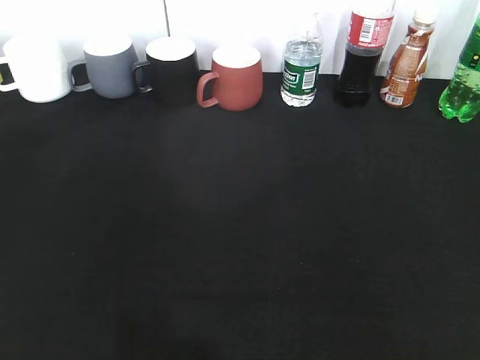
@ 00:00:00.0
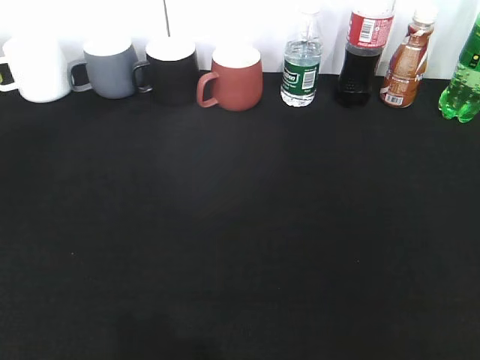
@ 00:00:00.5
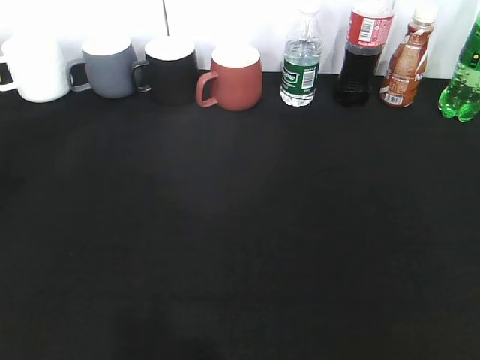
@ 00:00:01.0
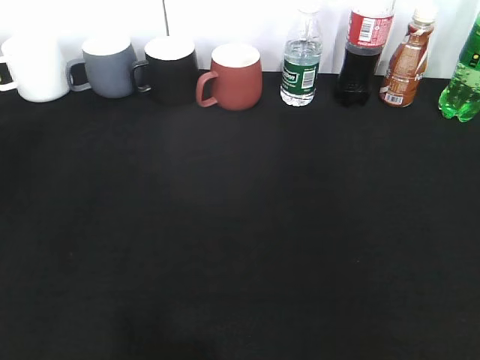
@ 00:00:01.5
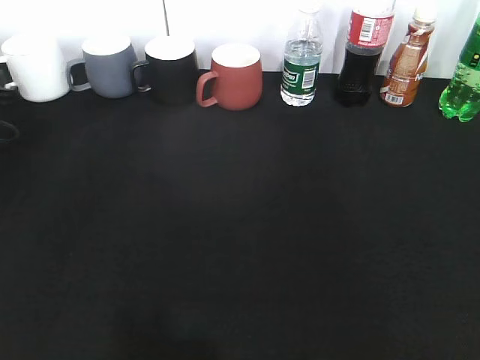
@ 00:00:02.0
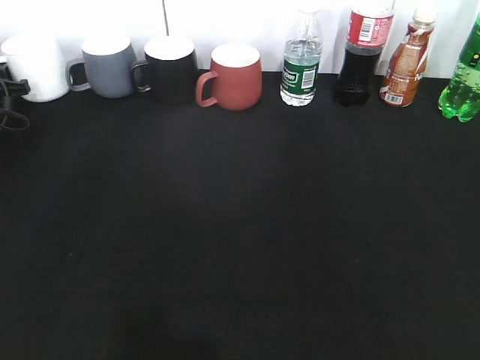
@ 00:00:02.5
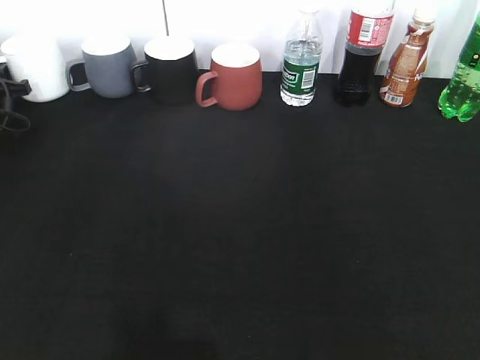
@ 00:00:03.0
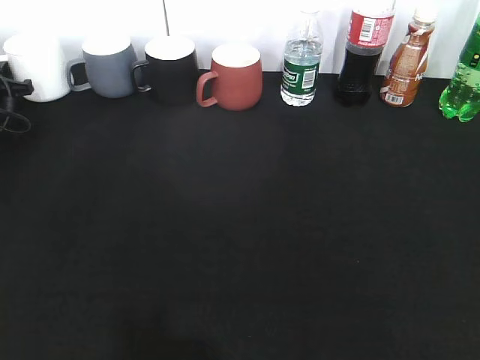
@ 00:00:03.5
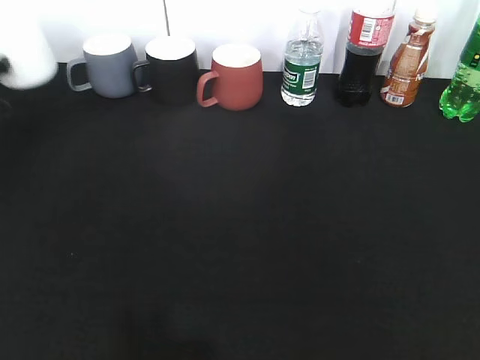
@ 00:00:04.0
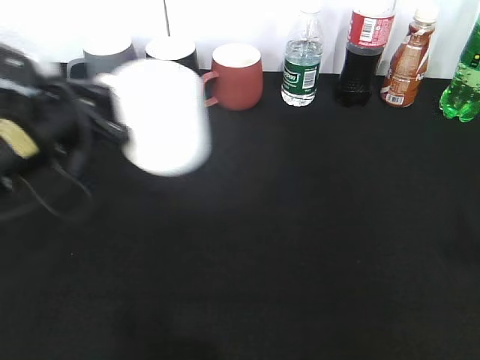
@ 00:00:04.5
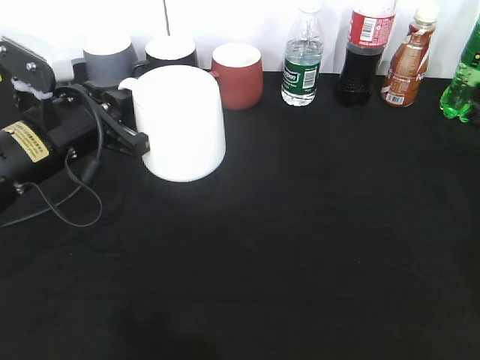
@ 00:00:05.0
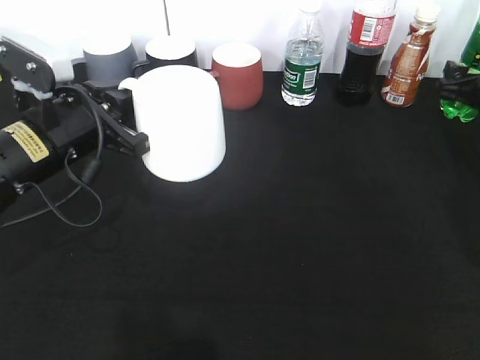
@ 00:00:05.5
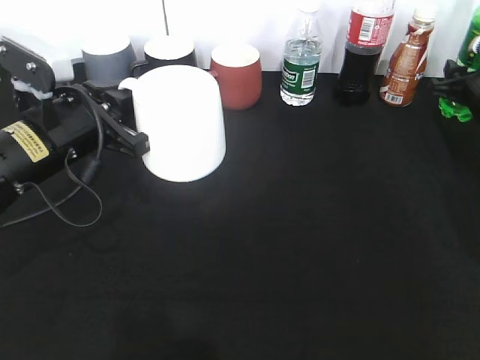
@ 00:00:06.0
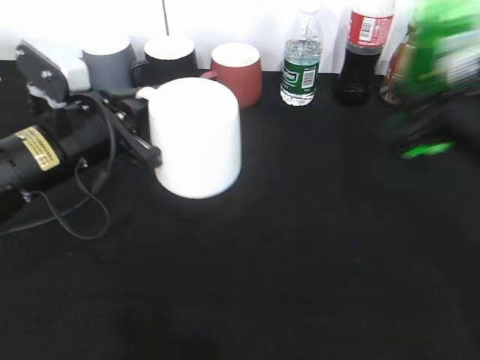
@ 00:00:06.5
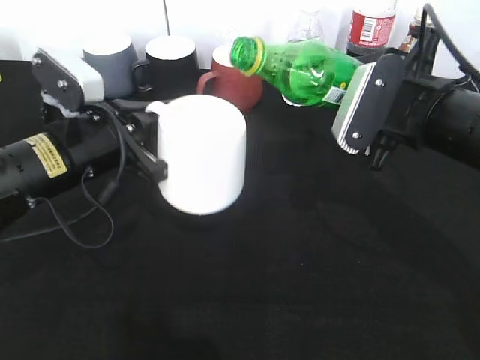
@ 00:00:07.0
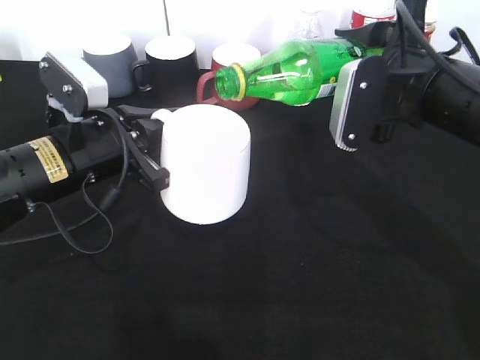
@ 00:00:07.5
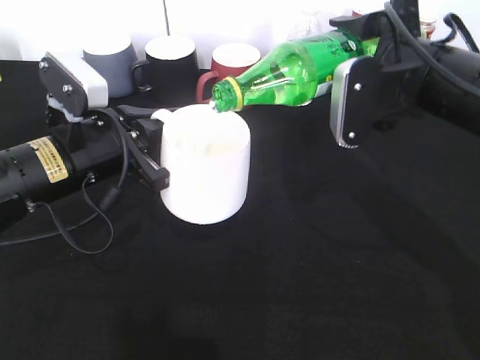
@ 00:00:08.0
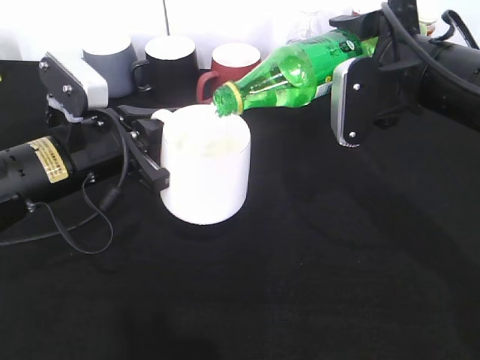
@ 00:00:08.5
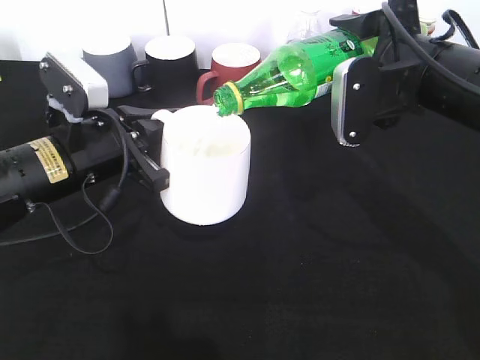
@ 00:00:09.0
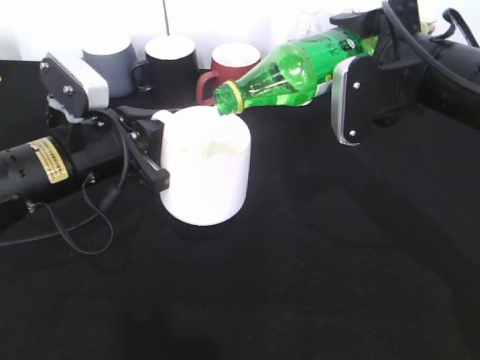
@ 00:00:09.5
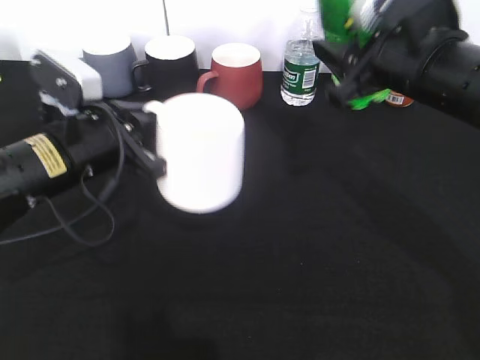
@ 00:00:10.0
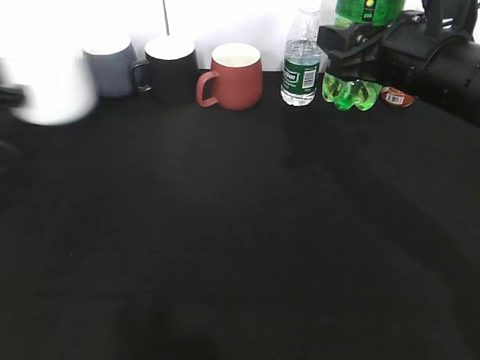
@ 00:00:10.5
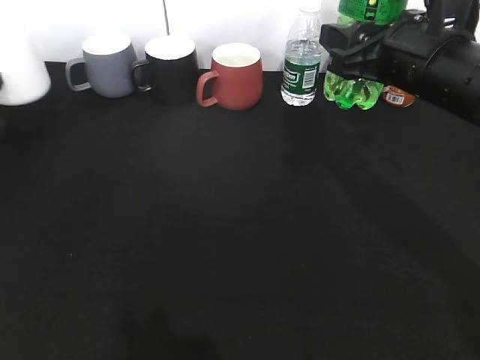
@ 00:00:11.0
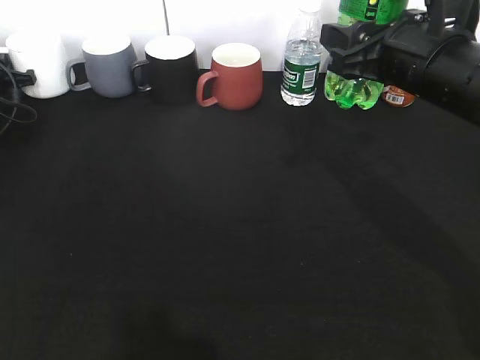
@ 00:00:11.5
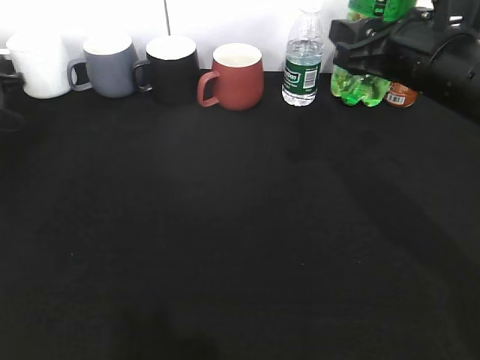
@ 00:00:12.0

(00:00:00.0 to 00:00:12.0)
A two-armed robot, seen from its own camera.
Step, 00:00:04.0 - 00:00:04.5: Lift the white cup with left gripper.
Step, 00:00:05.0 - 00:00:06.0: Grasp the bottle with sprite with right gripper.
Step, 00:00:06.5 - 00:00:09.5: Pour the sprite from bottle to cup with right gripper.
00:00:00.0 - 00:00:02.0: The left gripper heads forward, covering roughly 40 cm, and closes up.
00:00:02.0 - 00:00:04.0: The left gripper closes its fingers.
00:00:04.0 - 00:00:06.0: The right gripper heads forward, covering approximately 40 cm, and closes. Meanwhile the left gripper travels to the right and backward by approximately 25 cm.
00:00:06.0 - 00:00:08.0: The right gripper goes roughly 25 cm to the left, backward and upward.
00:00:10.0 - 00:00:12.0: The left gripper shifts about 30 cm to the left and forward, and opens its fingers.

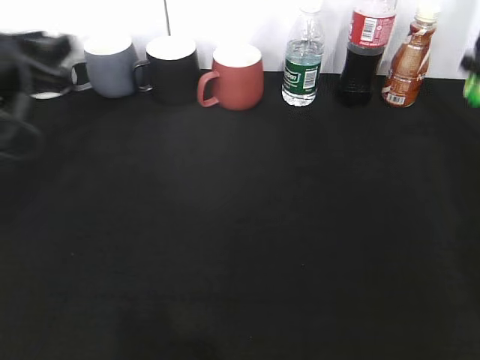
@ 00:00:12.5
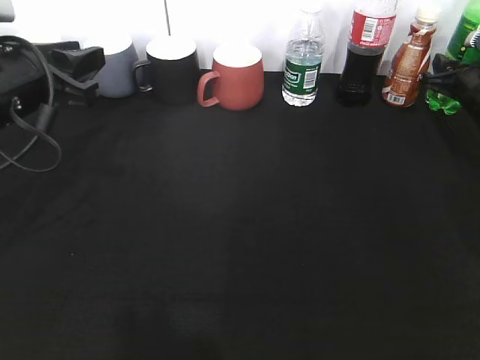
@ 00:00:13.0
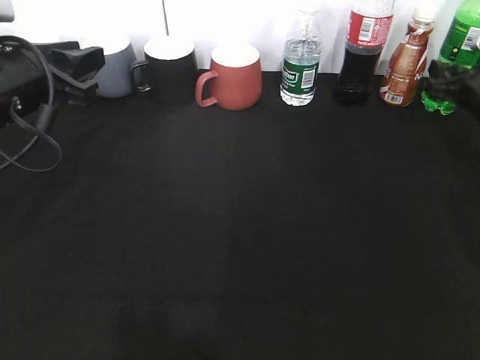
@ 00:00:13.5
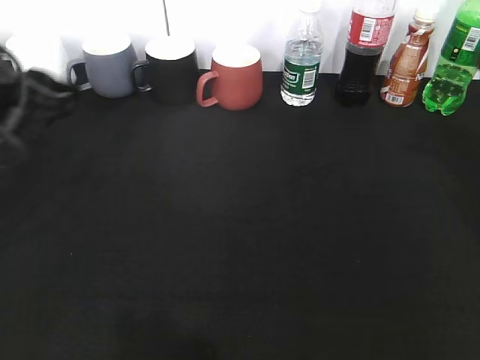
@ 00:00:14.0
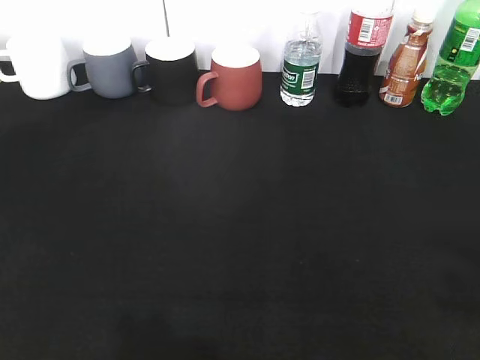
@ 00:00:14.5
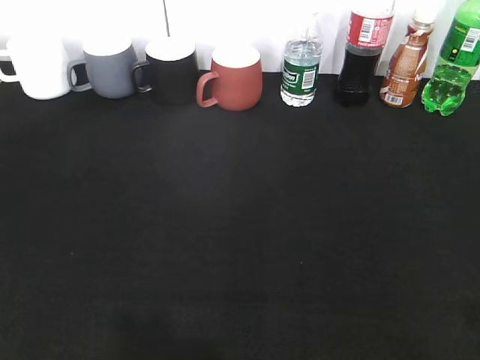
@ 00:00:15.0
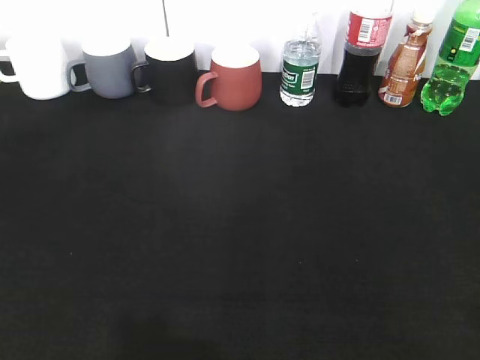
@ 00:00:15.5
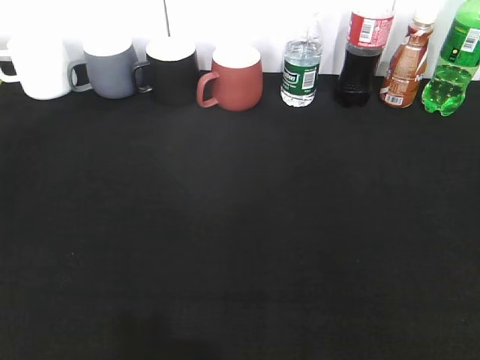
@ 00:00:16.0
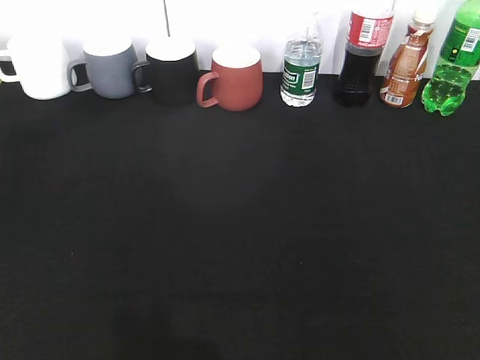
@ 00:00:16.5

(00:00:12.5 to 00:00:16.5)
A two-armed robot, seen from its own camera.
00:00:12.5 - 00:00:14.5: The grippers both shift backward and upward by roughly 30 cm. The right gripper opens, while the left gripper opens.
